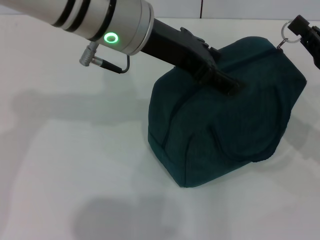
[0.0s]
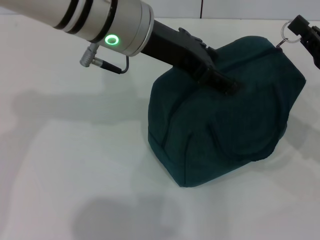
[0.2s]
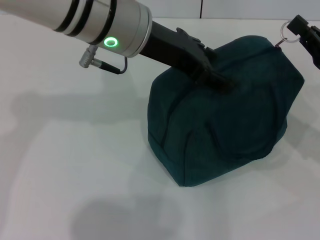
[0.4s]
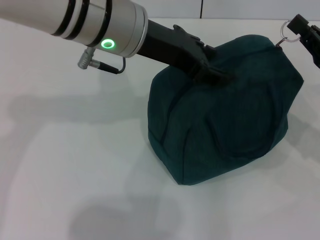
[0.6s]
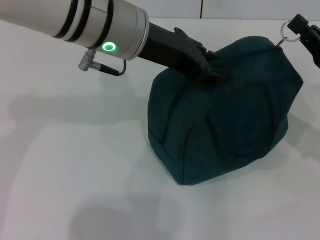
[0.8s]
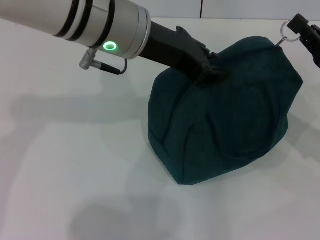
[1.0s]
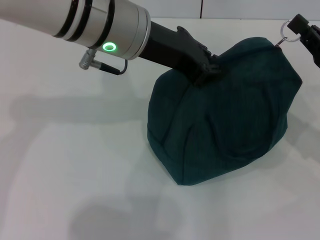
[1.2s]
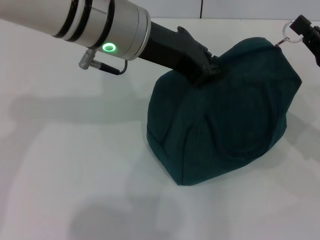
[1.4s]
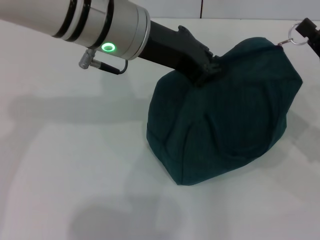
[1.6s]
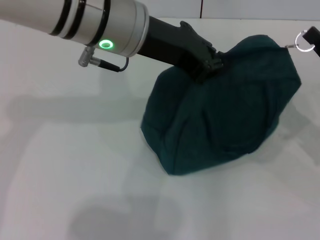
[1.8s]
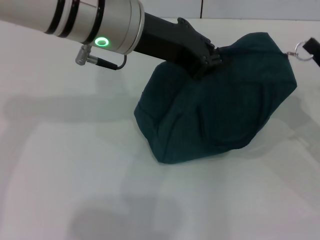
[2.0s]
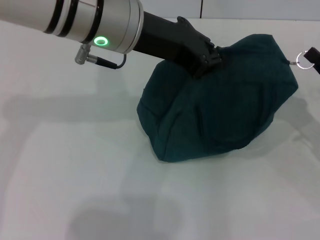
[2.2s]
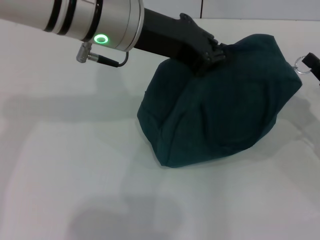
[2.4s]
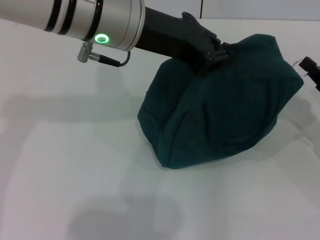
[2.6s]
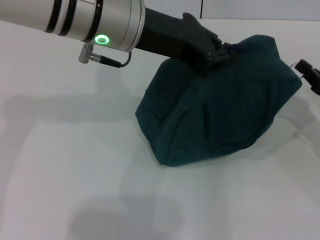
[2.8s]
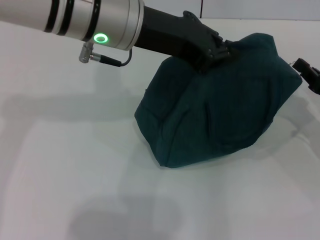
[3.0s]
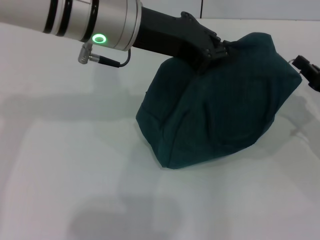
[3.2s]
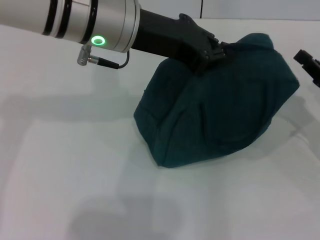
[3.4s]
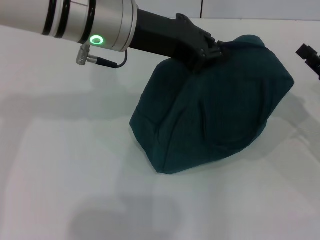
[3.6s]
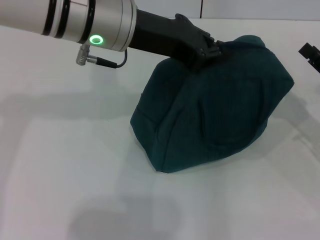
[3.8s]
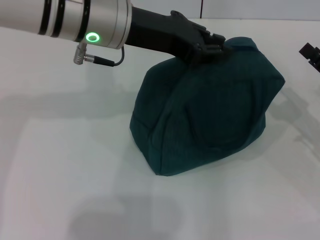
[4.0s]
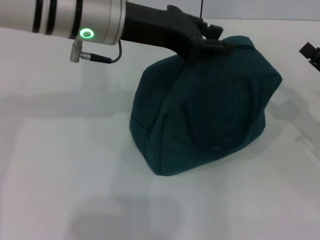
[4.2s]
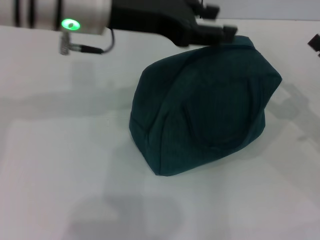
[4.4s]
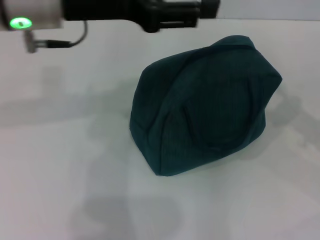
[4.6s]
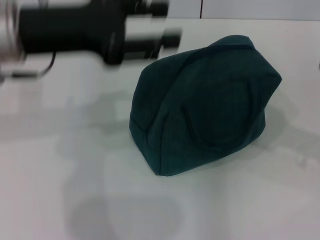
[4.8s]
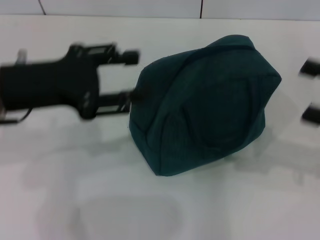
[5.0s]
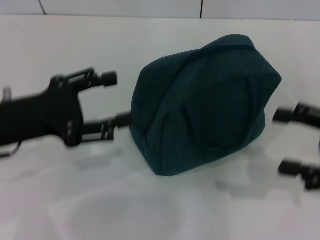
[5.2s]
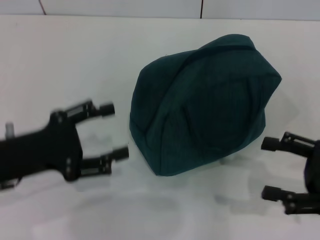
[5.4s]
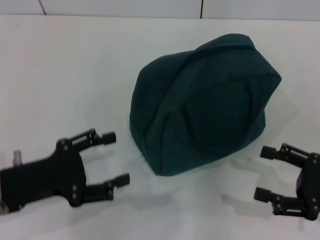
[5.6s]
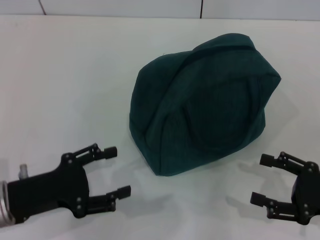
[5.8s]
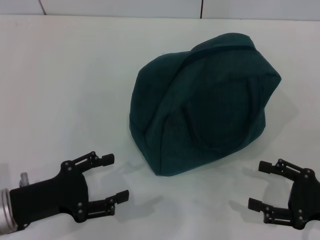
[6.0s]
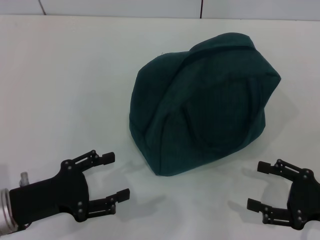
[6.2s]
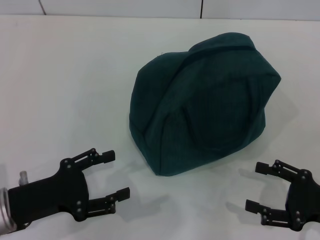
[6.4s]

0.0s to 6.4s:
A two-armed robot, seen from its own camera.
Step, 0.0s to 3.2s: Zip up the lunch bag with your right hand.
Step, 3.4s to 4.2s: Hold the lunch bag with your left hand.
0.0s to 1.6s: The left gripper closes.
3.2s to 4.8s: The right gripper goes roughly 10 cm upward, and opens. Meanwhile the left gripper travels to the left by roughly 10 cm, and opens up.
4.8s to 6.4s: The left gripper moves downward and backward, some 25 cm; the right gripper goes roughly 15 cm downward and backward.
